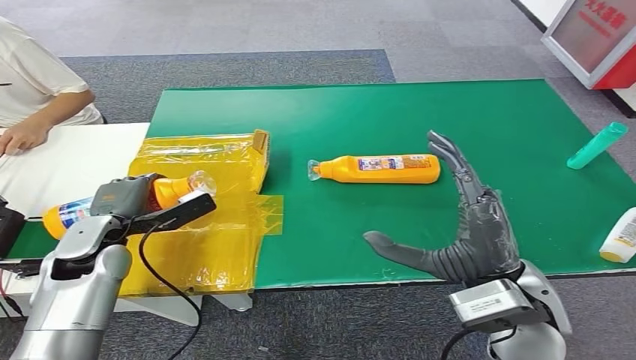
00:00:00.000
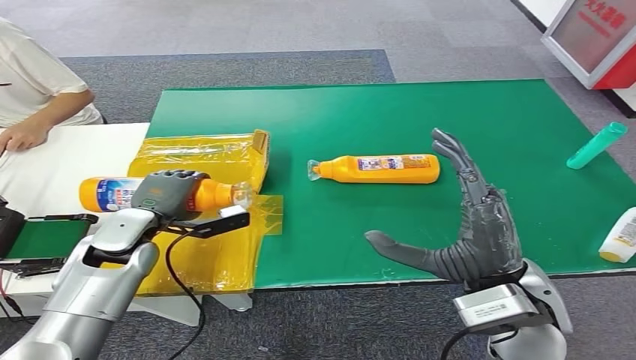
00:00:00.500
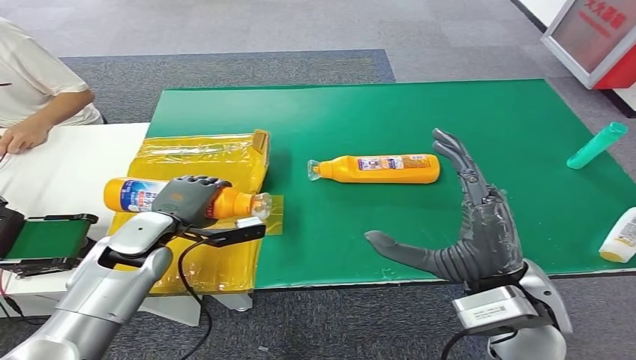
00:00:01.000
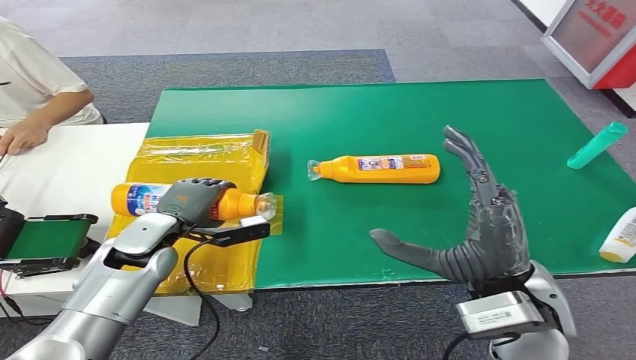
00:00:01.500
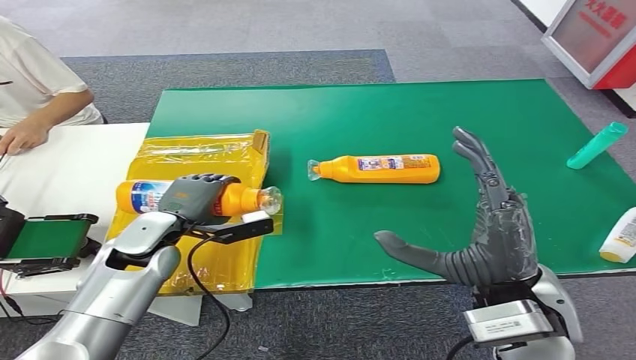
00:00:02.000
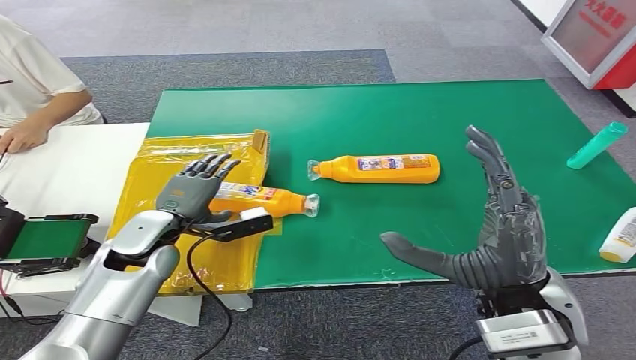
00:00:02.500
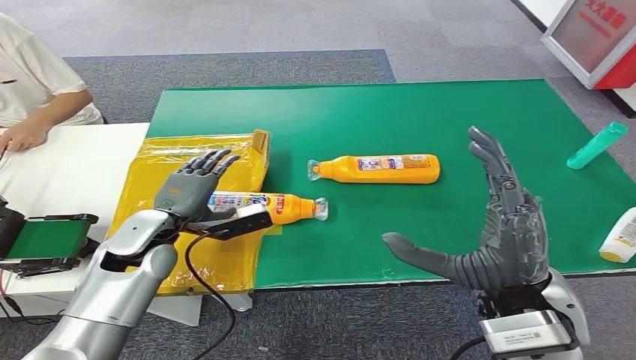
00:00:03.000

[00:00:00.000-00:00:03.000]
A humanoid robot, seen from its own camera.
Step, 00:00:00.000 to 00:00:03.000: Turn the bottle to the front side.
00:00:00.000 to 00:00:01.500: The left hand goes approximately 5 cm to the right.
00:00:01.500 to 00:00:03.000: The hands make only small movements.
